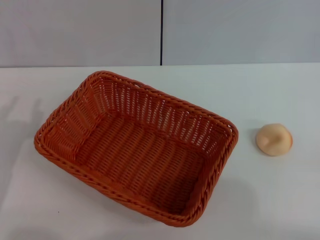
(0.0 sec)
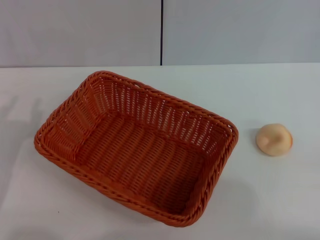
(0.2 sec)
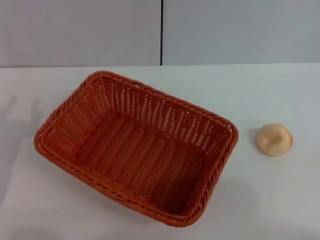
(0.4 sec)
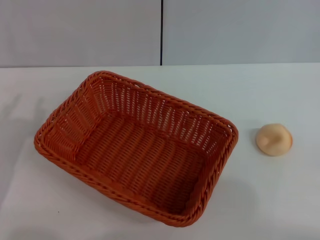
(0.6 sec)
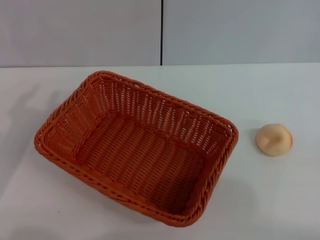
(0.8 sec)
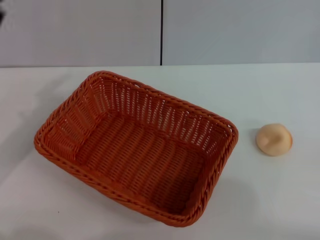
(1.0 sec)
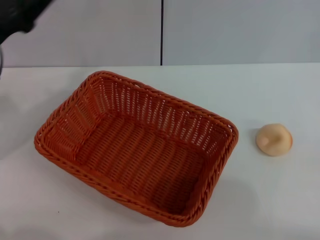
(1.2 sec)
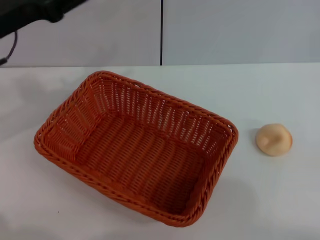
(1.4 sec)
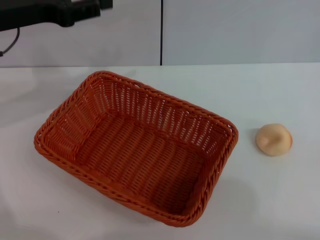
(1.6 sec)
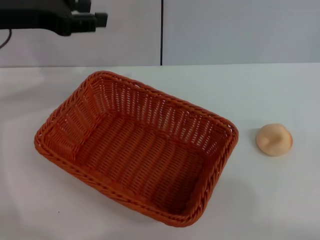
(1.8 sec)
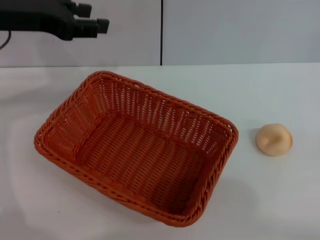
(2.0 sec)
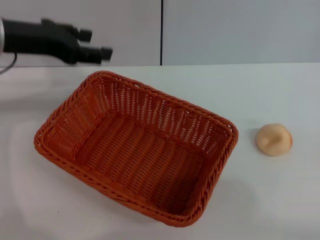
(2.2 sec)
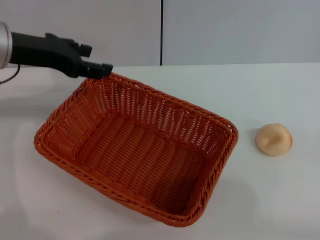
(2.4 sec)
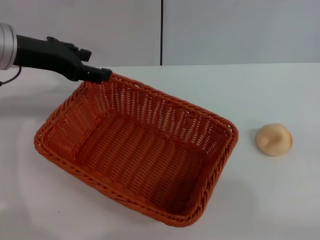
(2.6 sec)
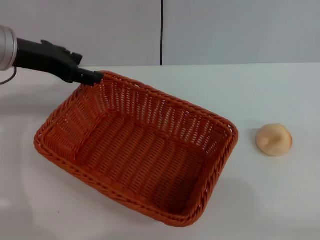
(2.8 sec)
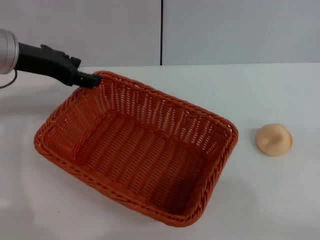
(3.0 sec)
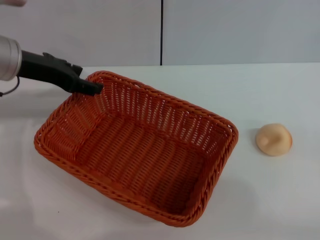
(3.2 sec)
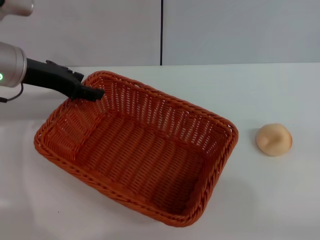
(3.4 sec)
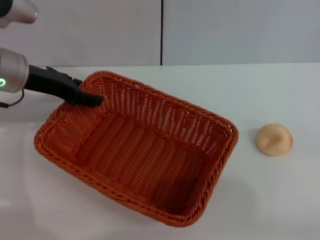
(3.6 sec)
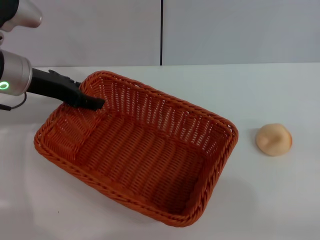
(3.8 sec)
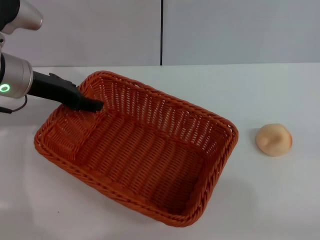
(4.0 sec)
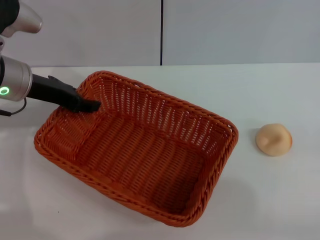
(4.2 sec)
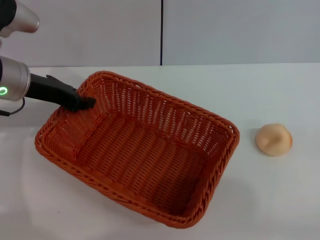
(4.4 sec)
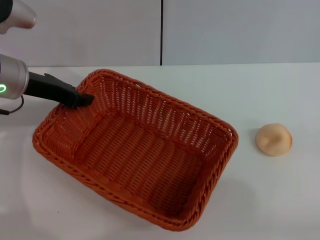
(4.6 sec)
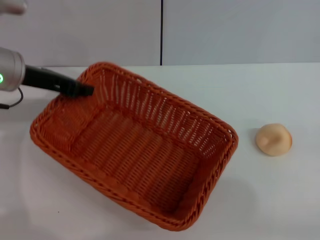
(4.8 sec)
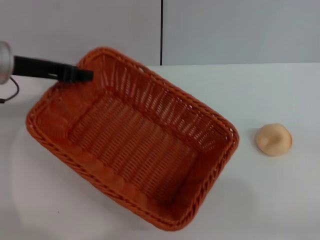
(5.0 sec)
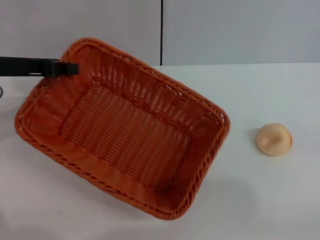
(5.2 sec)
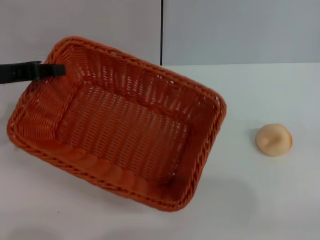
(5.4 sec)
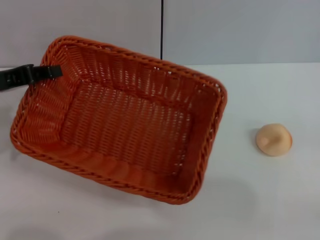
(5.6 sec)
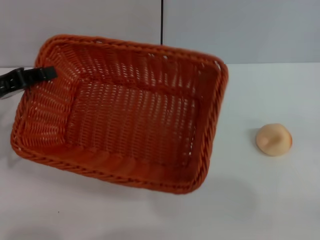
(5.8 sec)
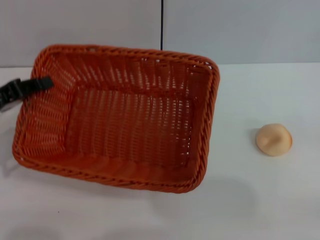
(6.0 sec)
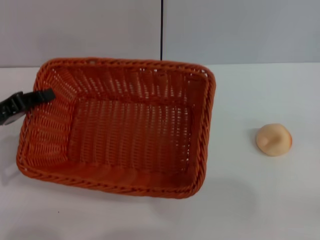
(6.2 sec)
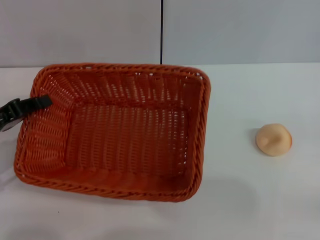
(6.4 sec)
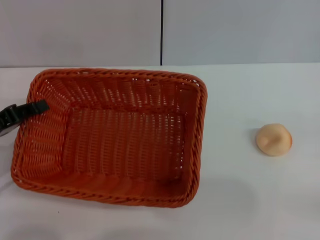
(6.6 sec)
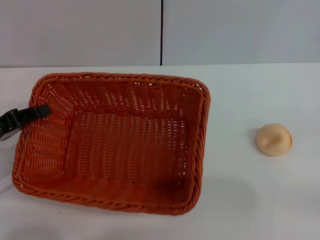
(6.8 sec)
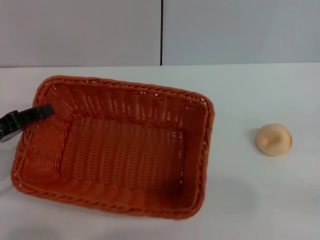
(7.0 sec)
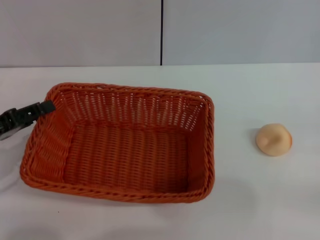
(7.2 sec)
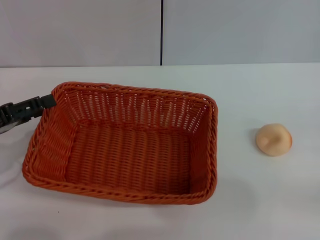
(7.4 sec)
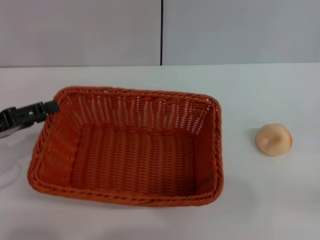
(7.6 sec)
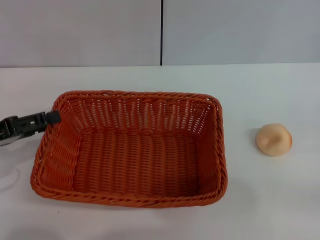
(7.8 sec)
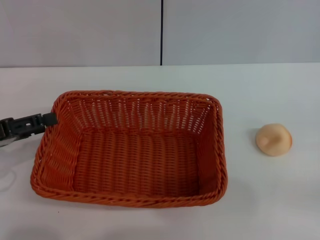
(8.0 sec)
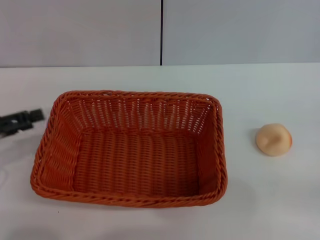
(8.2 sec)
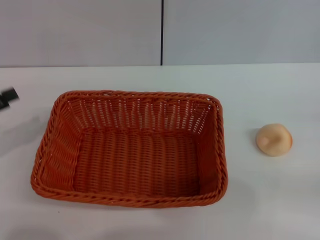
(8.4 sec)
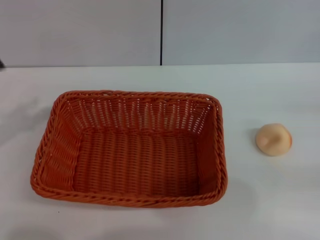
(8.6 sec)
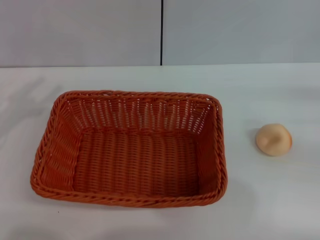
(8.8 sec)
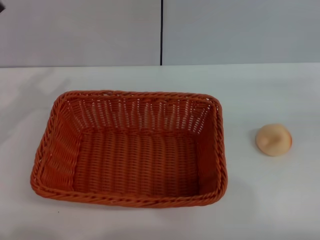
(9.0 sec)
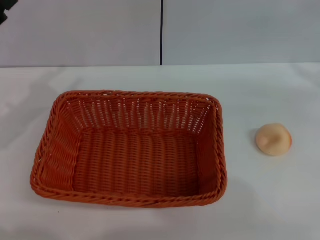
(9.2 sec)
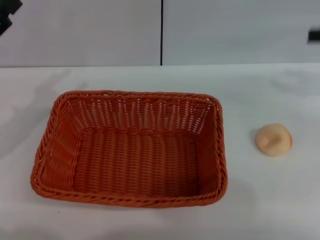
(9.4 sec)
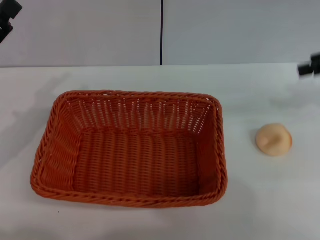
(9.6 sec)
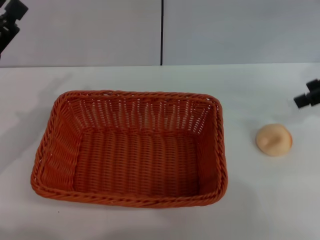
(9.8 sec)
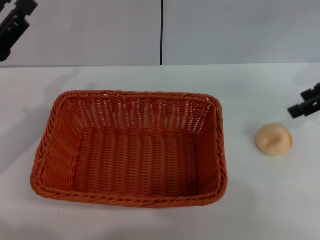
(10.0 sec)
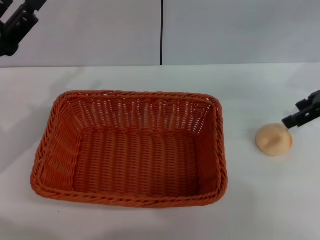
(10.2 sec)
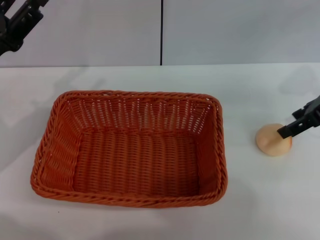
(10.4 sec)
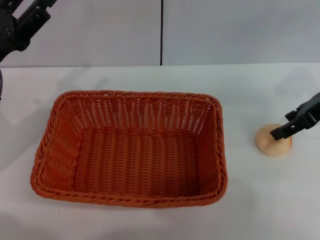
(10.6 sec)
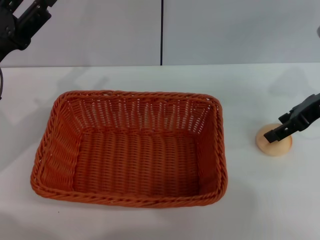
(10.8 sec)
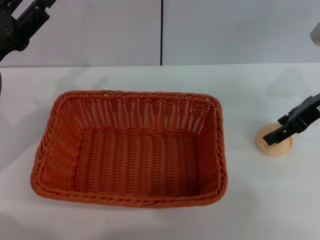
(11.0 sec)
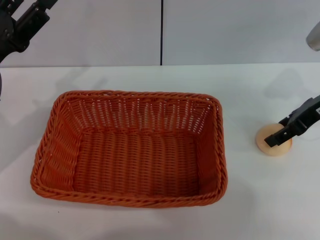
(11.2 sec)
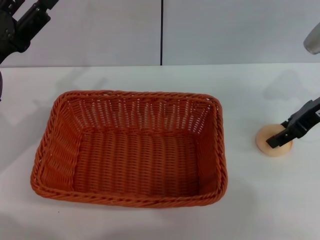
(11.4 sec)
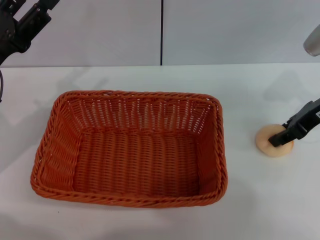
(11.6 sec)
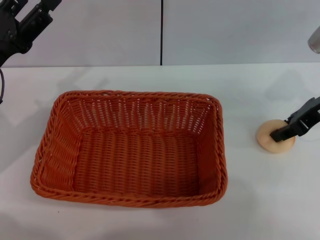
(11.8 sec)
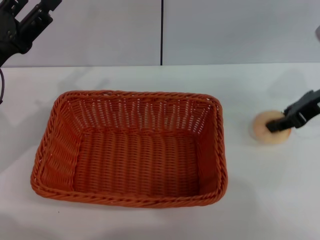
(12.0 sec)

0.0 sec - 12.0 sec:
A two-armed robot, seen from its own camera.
Step, 0.0 sec - 8.2 sec: Move the basket to the center of view with the left gripper.
0.0 sec - 1.6 sec: The left gripper shifts approximately 20 cm forward and upward.
3.0 sec - 4.4 sec: The left gripper closes up.
4.4 sec - 6.0 sec: The left gripper shifts approximately 10 cm backward and to the left.
6.0 sec - 7.6 sec: The left gripper opens its fingers.
7.6 sec - 9.0 sec: The right gripper is displaced upward and forward by about 15 cm. The left gripper shifts by some 5 cm.
9.0 sec - 10.4 sec: The left gripper goes roughly 5 cm to the right. Meanwhile the right gripper heads to the left and forward, covering some 15 cm.
10.4 sec - 12.0 sec: The right gripper closes up.

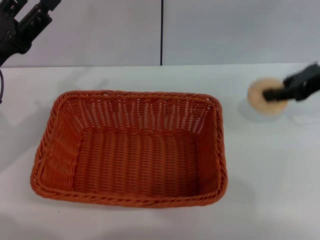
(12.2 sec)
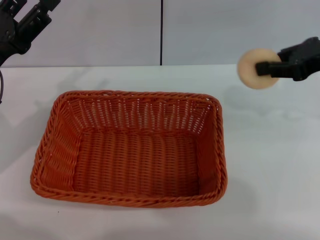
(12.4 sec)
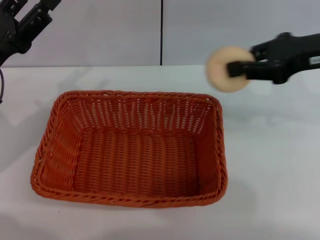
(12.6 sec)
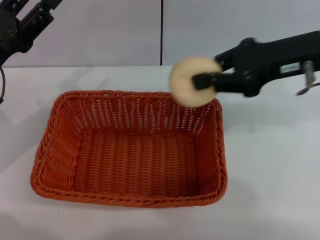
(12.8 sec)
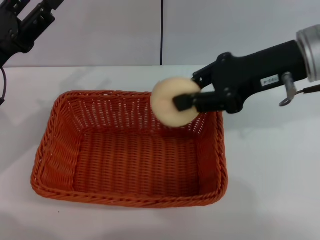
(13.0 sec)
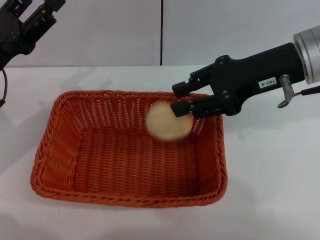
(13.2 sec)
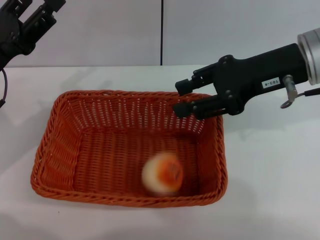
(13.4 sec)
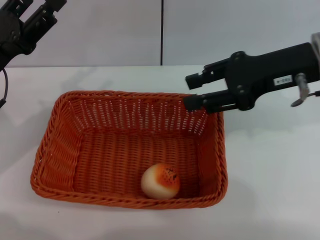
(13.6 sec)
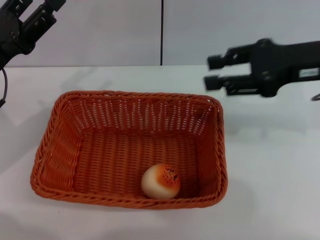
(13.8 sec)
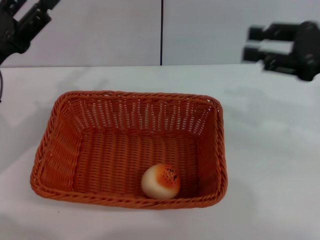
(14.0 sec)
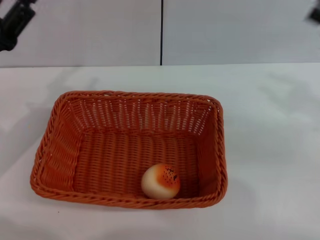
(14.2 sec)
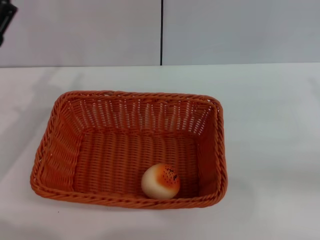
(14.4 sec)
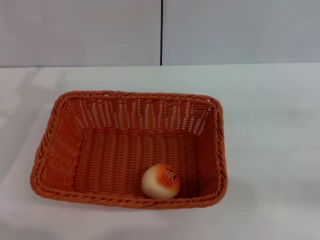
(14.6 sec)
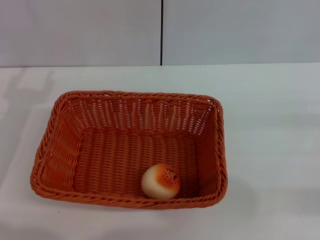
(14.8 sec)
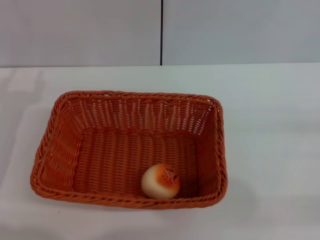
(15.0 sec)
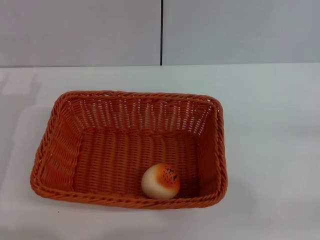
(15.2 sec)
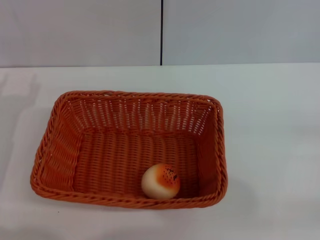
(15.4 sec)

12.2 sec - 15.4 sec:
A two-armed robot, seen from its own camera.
Step, 12.6 sec - 13.6 sec: Place the egg yolk pastry into the basket with the right gripper.
13.8 sec - 15.4 sec: The right gripper travels to the right, downward and backward by roughly 25 cm; the left gripper ends up about 5 cm from where it was.
